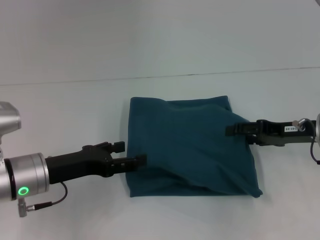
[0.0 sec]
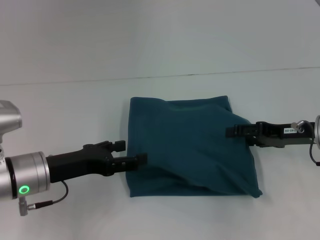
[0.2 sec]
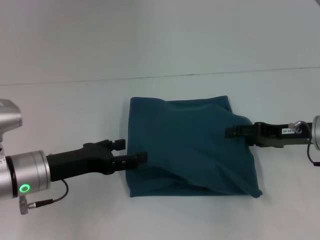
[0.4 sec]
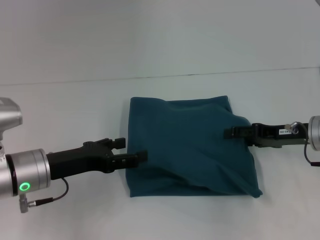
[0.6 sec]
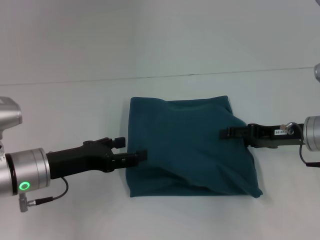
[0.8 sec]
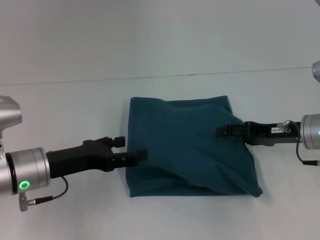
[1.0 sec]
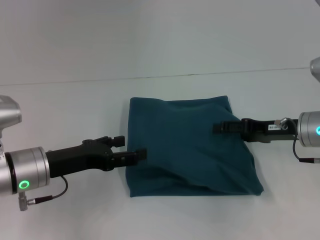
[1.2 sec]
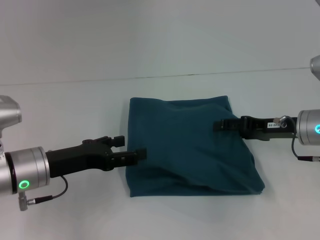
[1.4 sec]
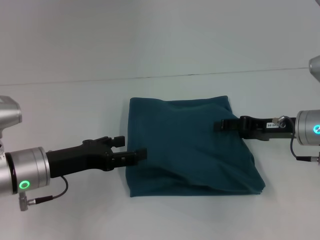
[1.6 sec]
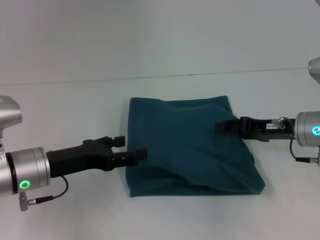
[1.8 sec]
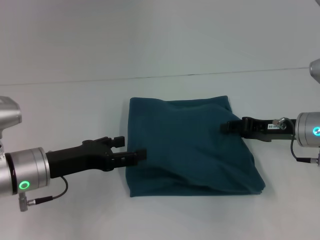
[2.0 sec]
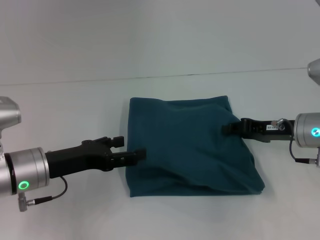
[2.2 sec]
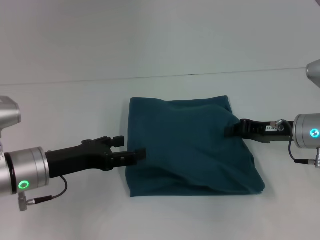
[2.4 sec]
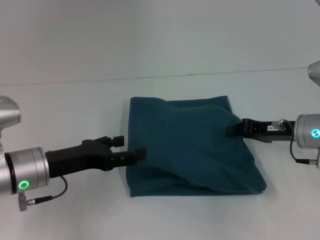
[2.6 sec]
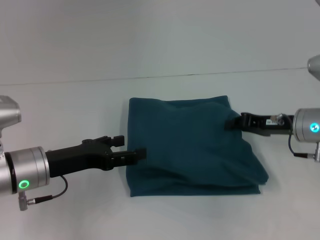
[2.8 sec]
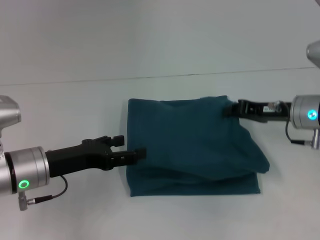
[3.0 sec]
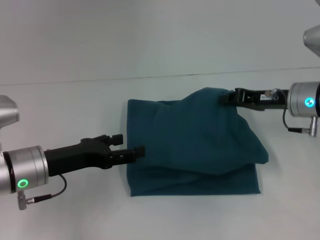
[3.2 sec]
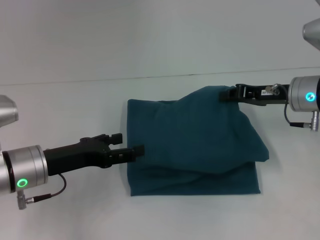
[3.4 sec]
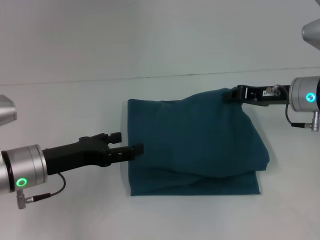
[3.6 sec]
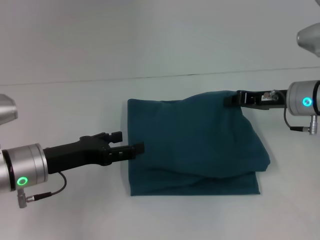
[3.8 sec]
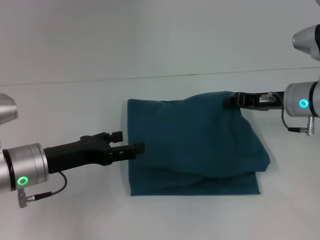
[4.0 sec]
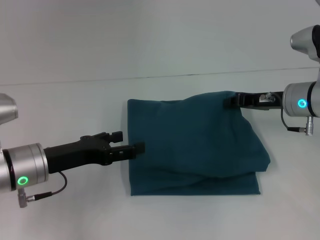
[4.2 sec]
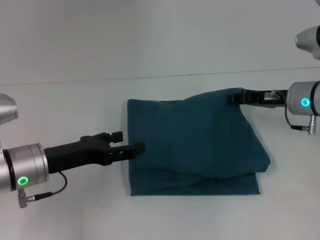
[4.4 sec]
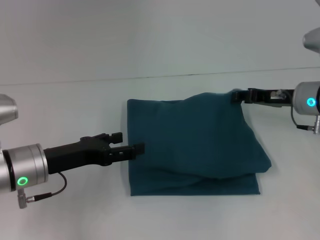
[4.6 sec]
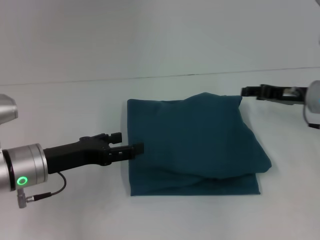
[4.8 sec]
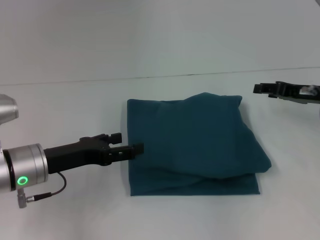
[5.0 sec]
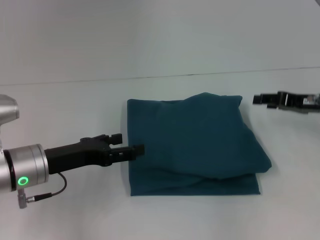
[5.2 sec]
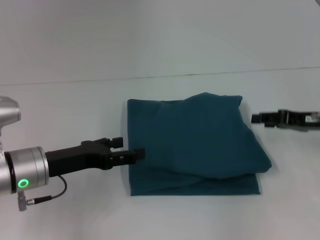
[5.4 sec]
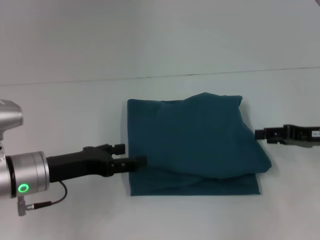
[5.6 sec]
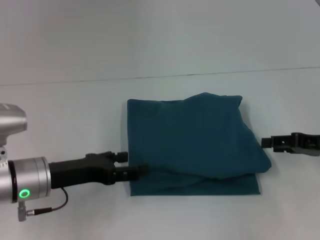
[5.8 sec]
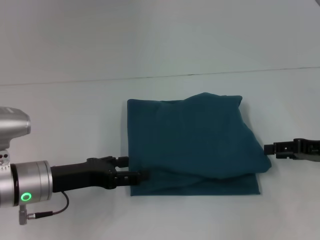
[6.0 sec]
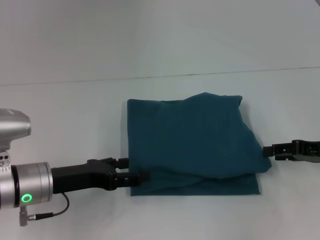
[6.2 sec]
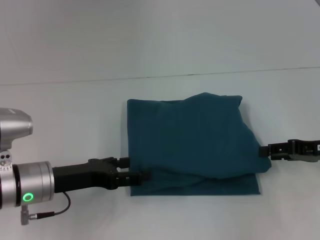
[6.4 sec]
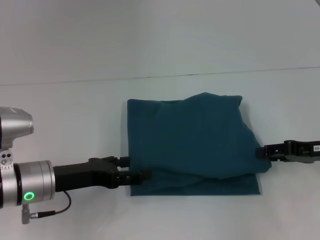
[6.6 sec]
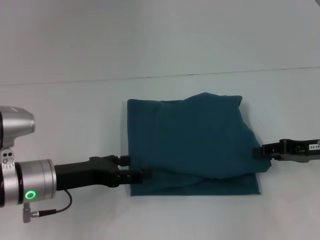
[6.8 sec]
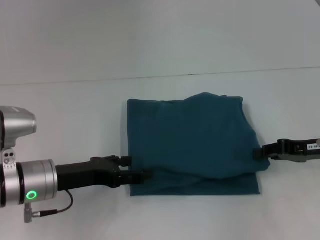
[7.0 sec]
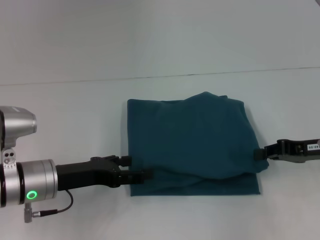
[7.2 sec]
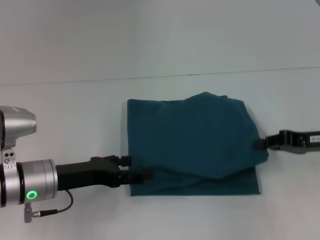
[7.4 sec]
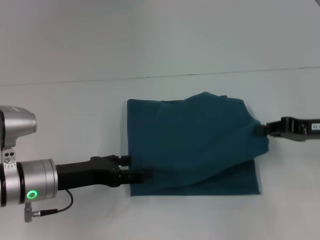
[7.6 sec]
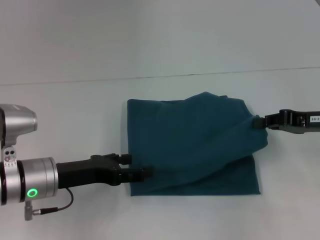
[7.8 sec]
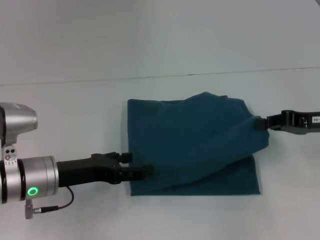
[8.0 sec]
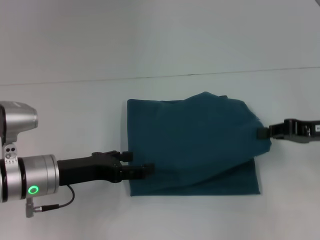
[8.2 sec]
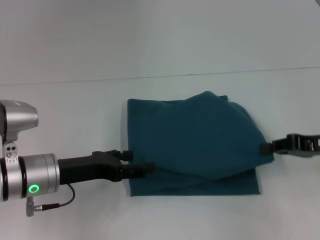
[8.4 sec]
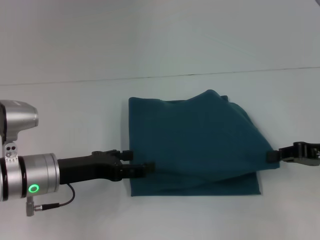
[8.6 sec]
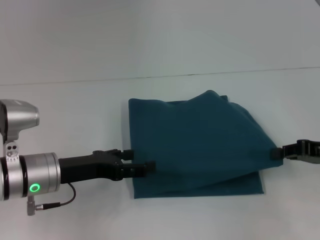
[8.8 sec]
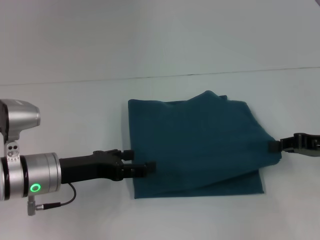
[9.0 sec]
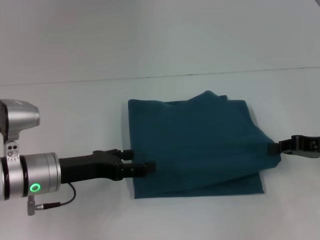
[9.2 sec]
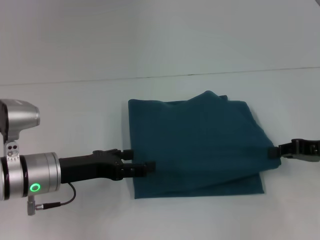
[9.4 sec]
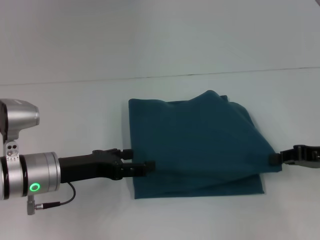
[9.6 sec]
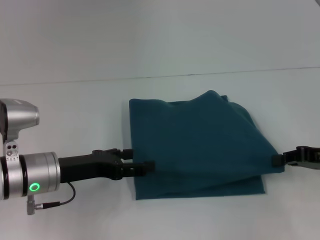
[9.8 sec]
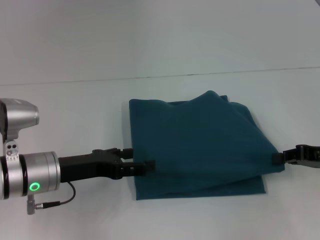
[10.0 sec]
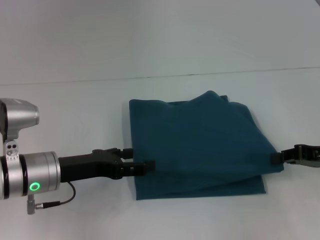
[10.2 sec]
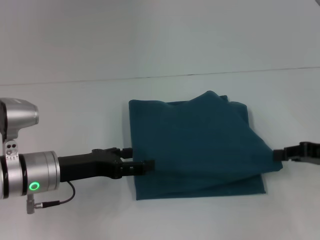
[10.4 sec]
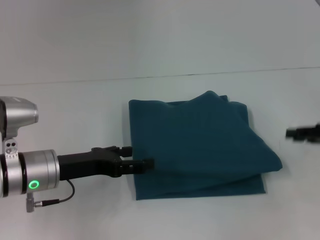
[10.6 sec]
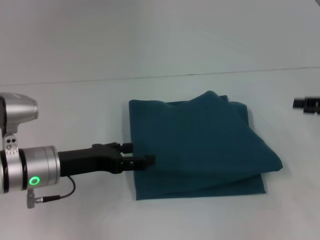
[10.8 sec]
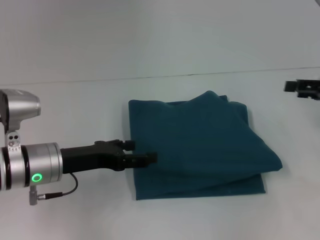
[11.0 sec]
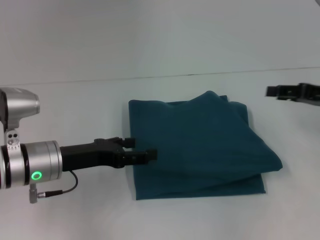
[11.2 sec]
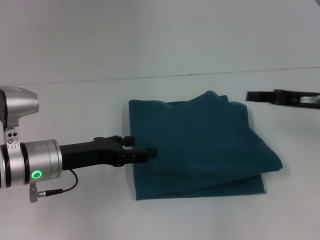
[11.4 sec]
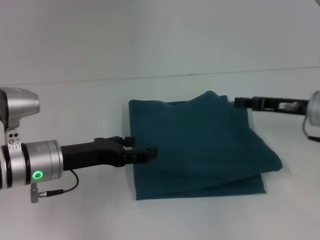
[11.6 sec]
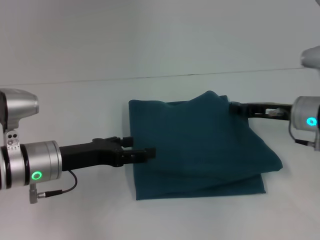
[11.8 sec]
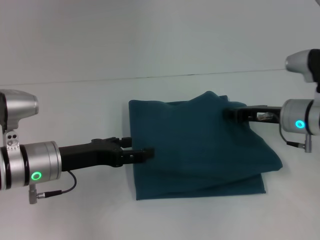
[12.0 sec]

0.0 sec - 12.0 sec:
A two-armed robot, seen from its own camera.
0.0 sec - 1.6 sec: The grippers move only a little.
1.6 sec - 3.0 sec: The right gripper closes its fingers.
3.0 sec - 4.4 sec: The grippers stay close to where they were, moving slightly.
4.4 sec - 6.0 sec: The right gripper goes some 10 cm backward and to the right, and opens its fingers.
6.0 sec - 7.6 sec: The right gripper closes.
7.6 sec - 9.0 sec: The grippers make only small movements.
9.0 sec - 10.4 sec: Both grippers stay put.
10.4 sec - 12.0 sec: The right gripper is displaced to the left and forward by some 10 cm, and opens and closes again.

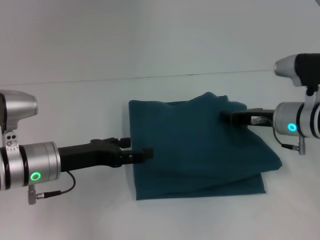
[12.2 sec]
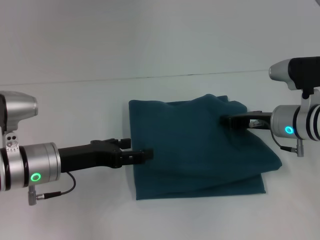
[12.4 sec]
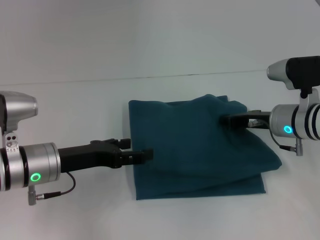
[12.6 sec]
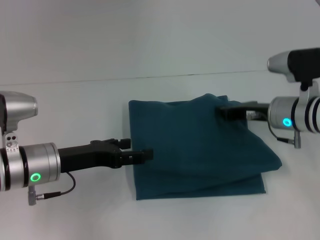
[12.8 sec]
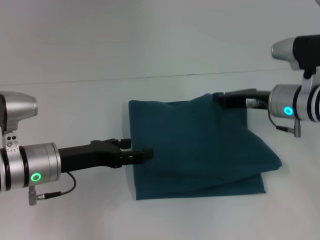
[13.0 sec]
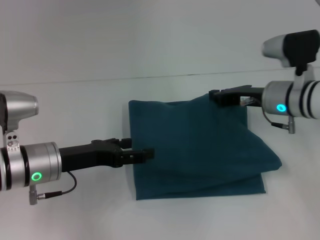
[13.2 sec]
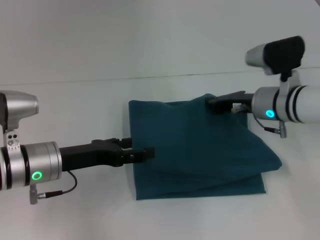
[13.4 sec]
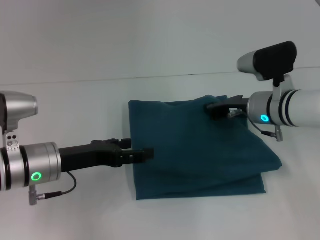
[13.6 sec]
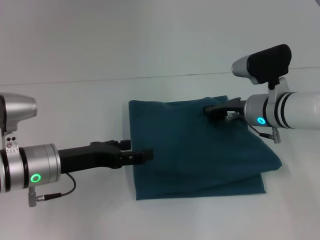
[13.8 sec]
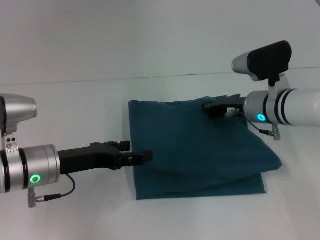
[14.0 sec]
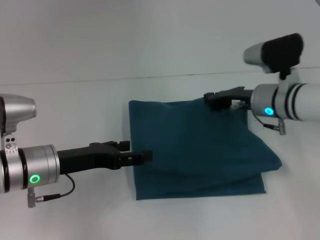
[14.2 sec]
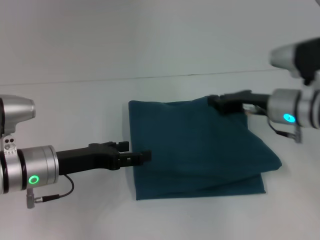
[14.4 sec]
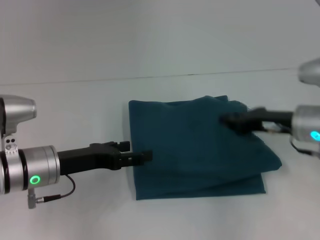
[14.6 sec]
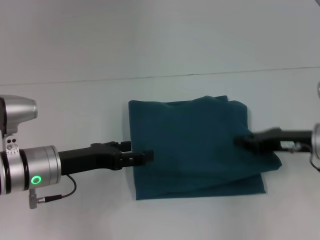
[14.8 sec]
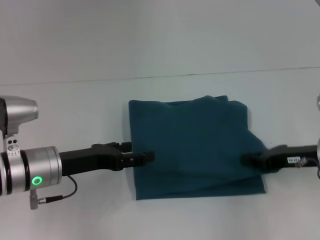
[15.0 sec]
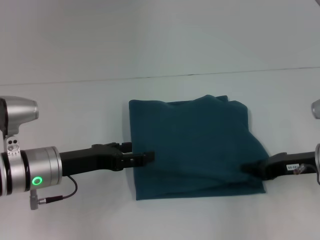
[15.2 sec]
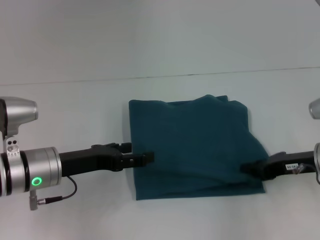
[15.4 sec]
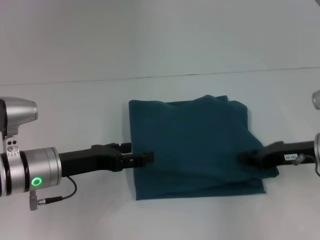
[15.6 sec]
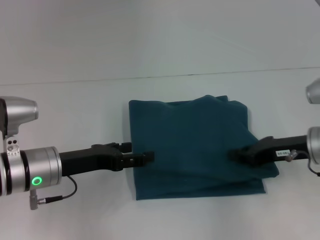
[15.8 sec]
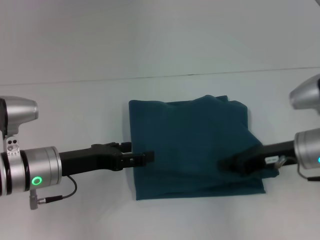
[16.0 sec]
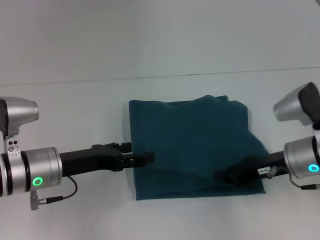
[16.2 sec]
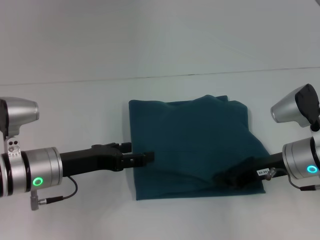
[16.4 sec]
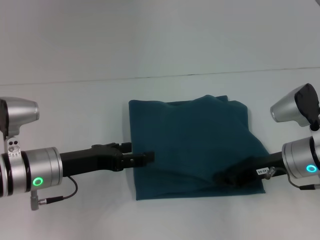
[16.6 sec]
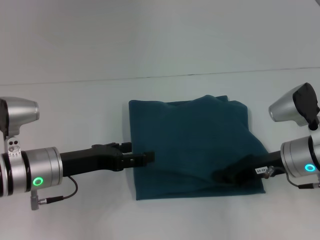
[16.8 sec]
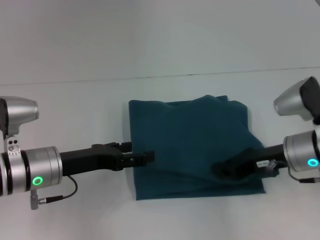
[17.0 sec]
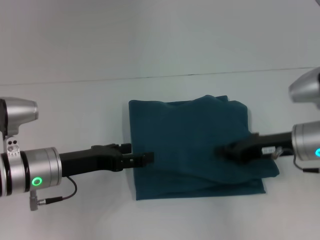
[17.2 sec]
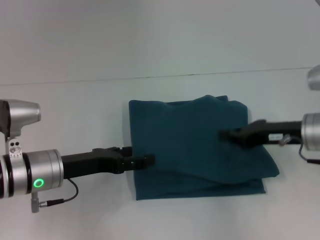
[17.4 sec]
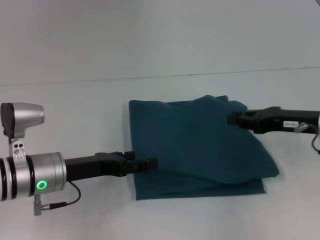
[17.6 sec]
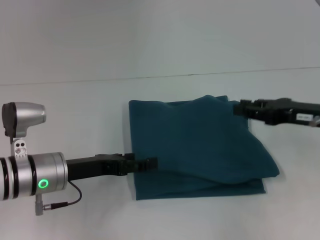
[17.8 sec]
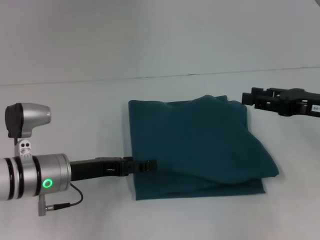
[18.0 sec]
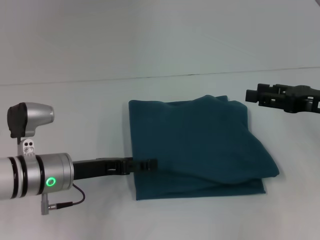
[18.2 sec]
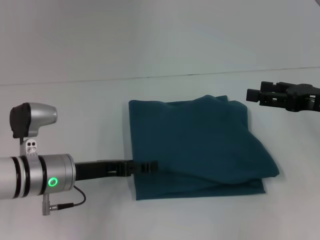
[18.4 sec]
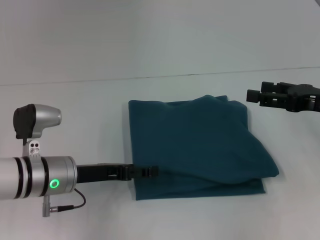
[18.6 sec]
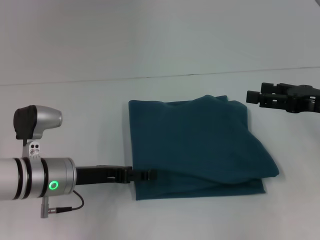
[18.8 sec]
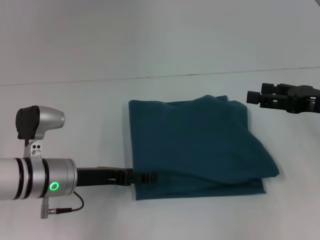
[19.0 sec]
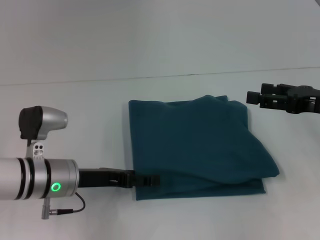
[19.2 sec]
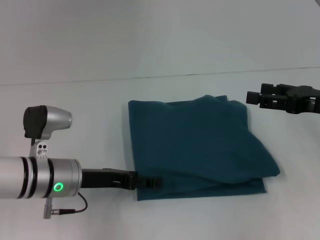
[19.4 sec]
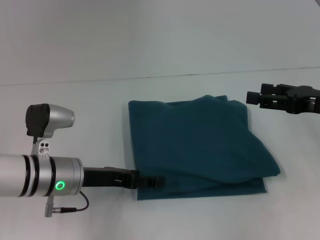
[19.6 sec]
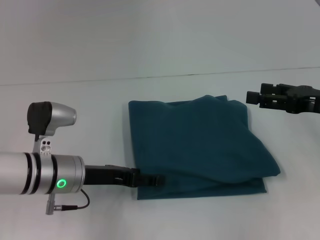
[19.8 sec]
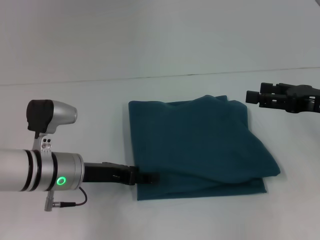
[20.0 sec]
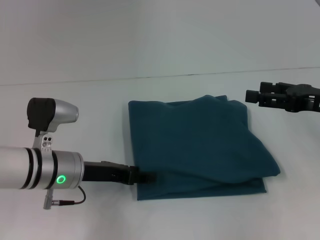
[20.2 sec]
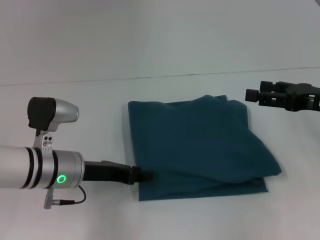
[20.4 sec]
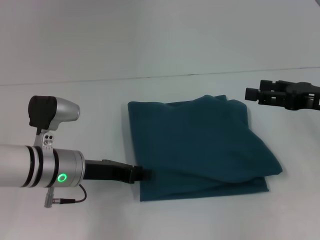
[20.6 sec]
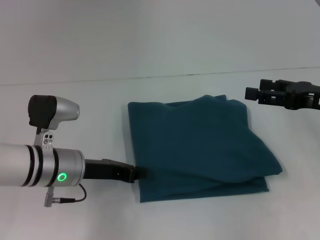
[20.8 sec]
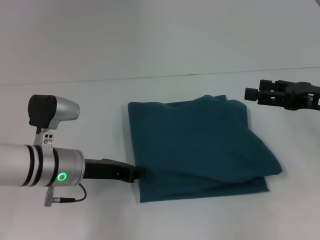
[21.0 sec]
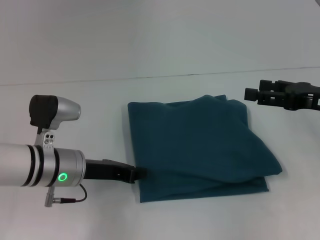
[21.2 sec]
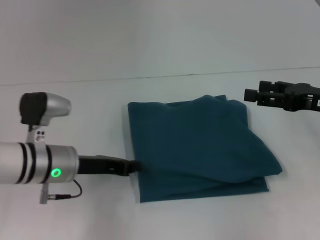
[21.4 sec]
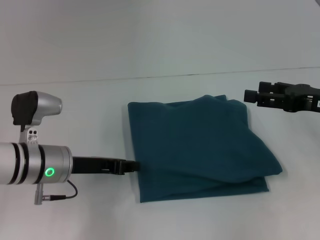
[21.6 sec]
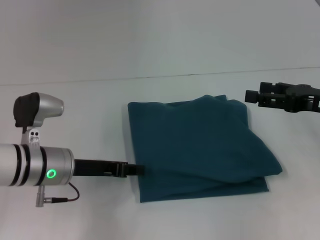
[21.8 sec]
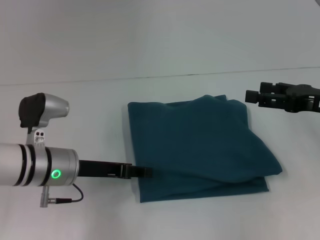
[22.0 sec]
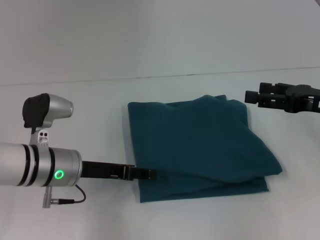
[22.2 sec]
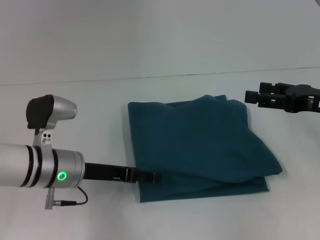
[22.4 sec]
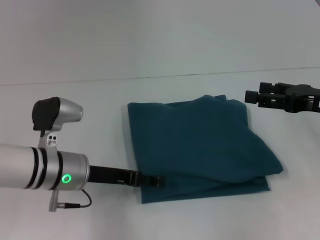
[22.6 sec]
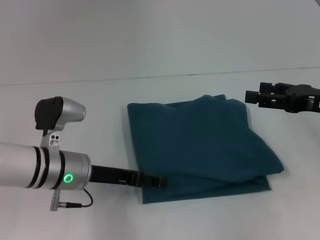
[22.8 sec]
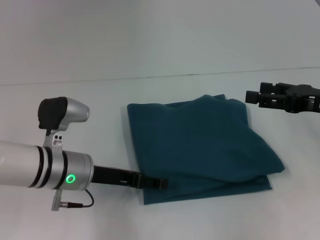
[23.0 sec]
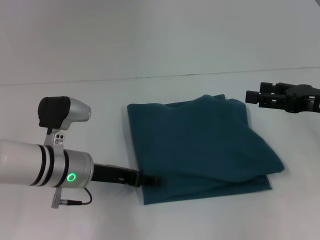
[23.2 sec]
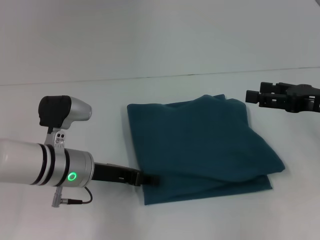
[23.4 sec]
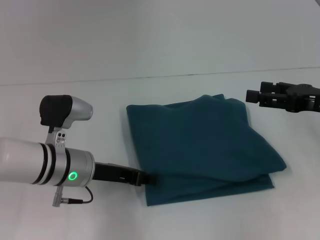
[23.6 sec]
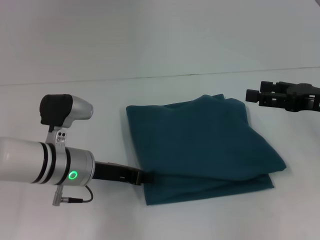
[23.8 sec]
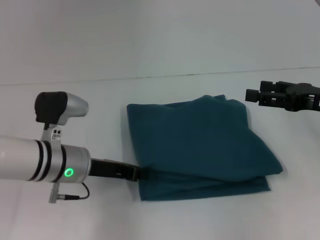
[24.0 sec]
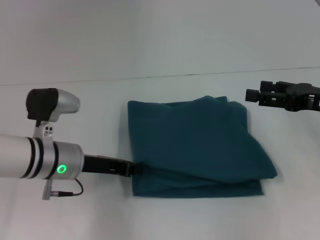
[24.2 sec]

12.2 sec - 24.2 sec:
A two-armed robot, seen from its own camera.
12.2 sec - 13.8 sec: The right gripper shifts by roughly 5 cm.
13.8 sec - 15.2 sec: The right gripper heads to the right and backward, covering about 15 cm.
15.2 sec - 16.6 sec: The right gripper goes about 5 cm to the left.
16.6 sec - 18.2 sec: The right gripper travels to the right and upward by some 10 cm, and opens up.
18.2 sec - 19.8 sec: The right gripper opens up.
19.8 sec - 21.2 sec: The left gripper closes its fingers.
21.2 sec - 22.6 sec: The left gripper opens.
22.6 sec - 24.2 sec: The left gripper closes its fingers.
